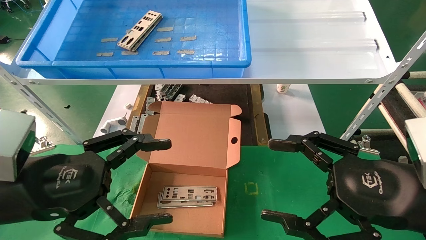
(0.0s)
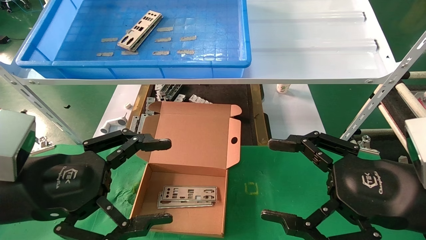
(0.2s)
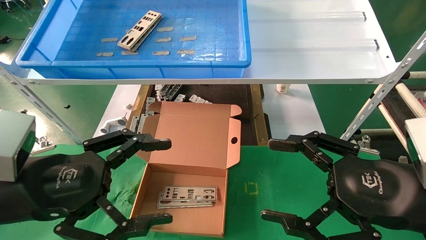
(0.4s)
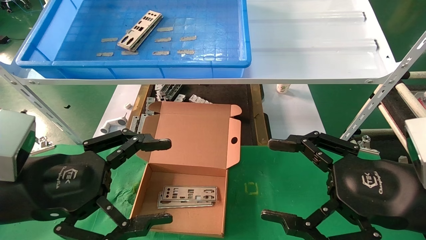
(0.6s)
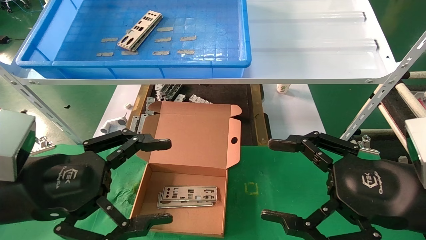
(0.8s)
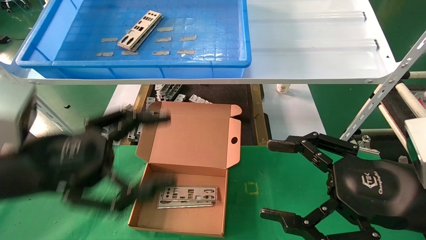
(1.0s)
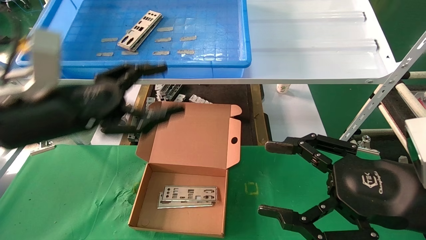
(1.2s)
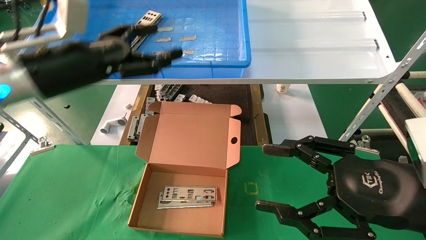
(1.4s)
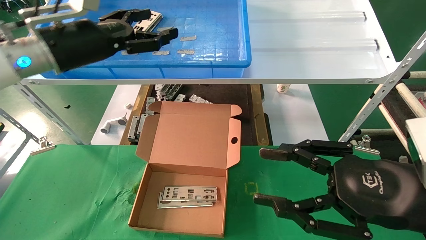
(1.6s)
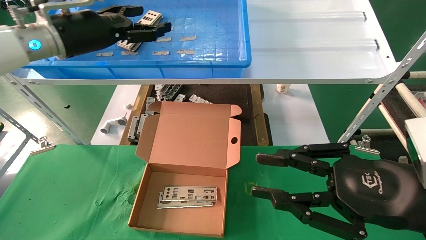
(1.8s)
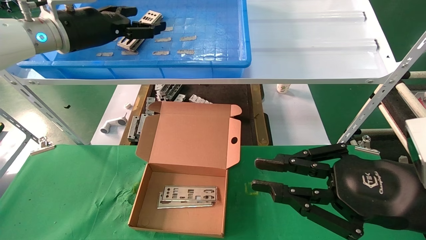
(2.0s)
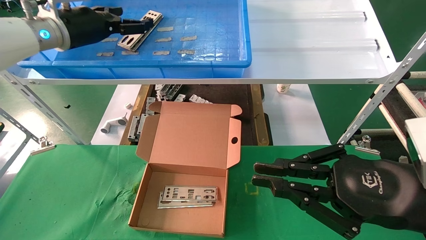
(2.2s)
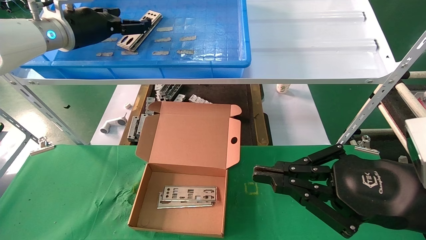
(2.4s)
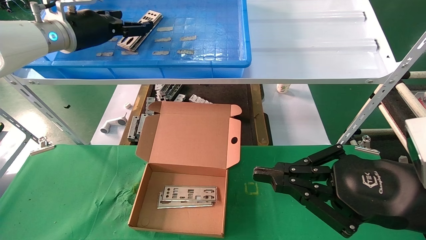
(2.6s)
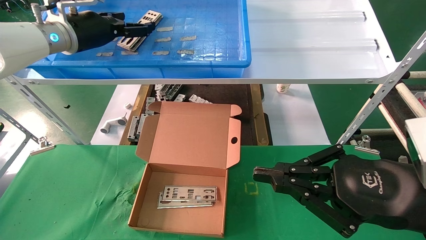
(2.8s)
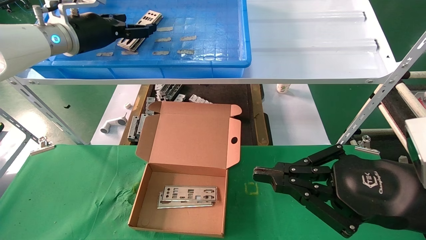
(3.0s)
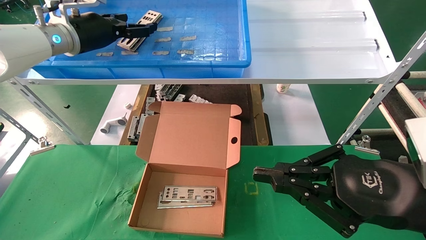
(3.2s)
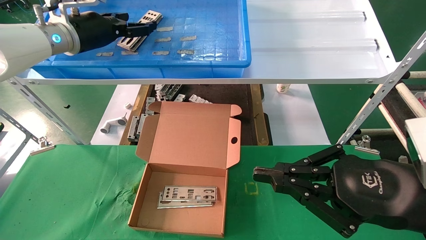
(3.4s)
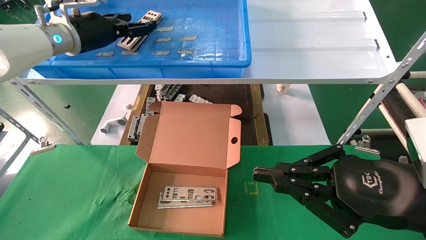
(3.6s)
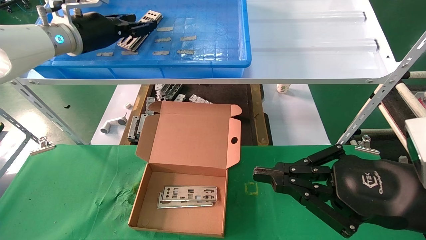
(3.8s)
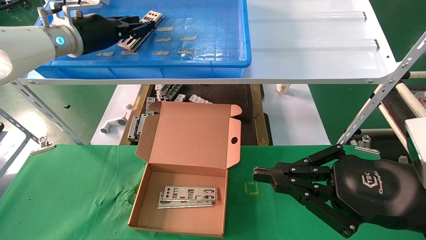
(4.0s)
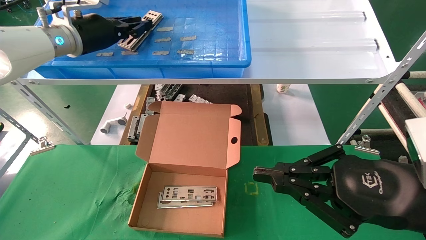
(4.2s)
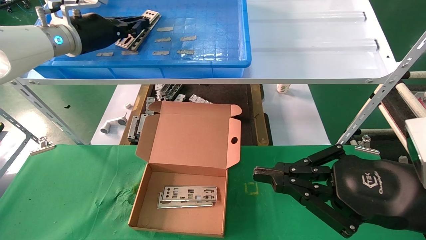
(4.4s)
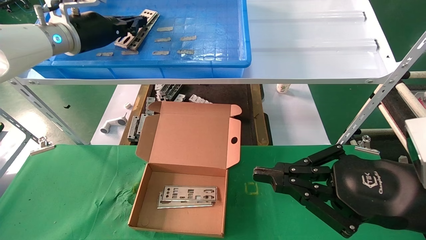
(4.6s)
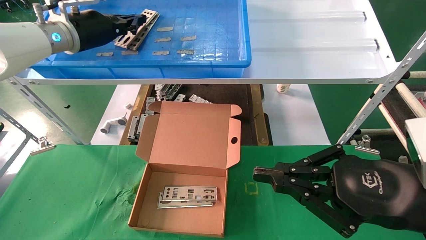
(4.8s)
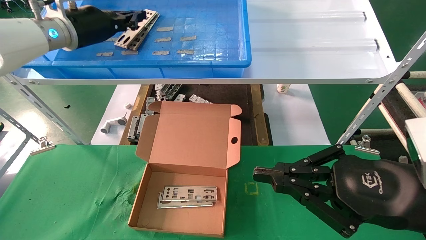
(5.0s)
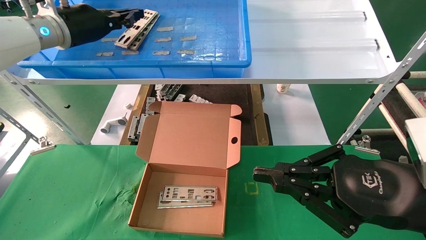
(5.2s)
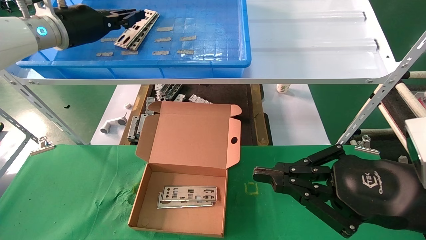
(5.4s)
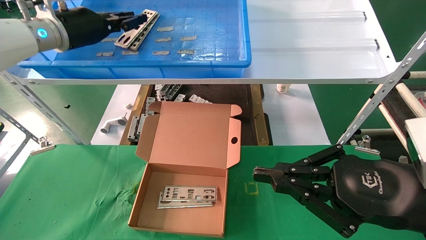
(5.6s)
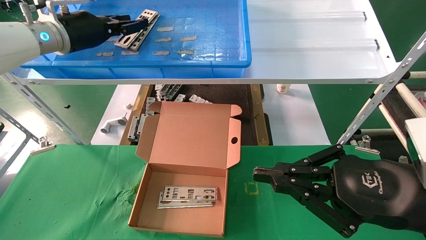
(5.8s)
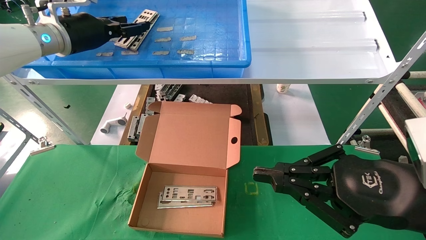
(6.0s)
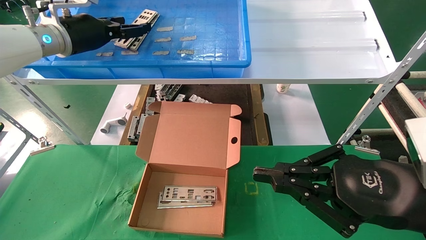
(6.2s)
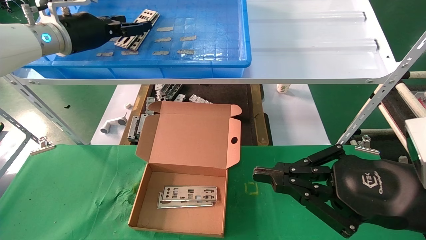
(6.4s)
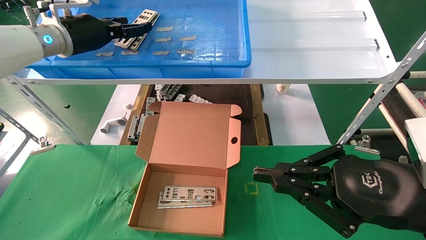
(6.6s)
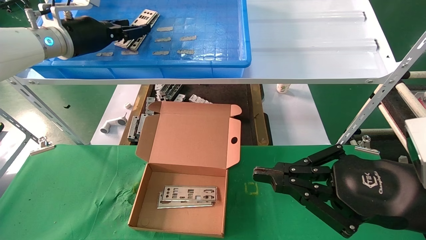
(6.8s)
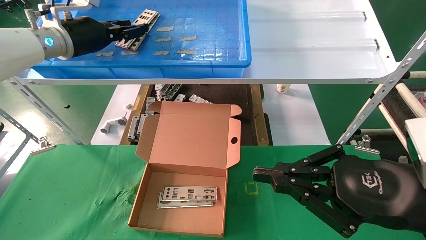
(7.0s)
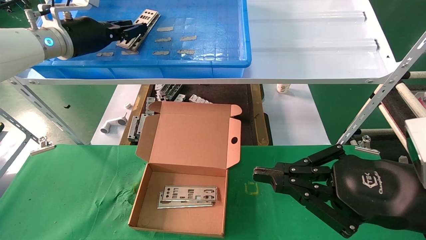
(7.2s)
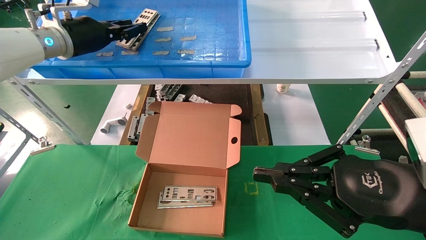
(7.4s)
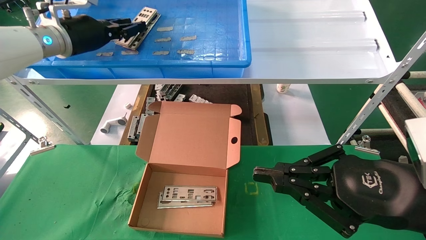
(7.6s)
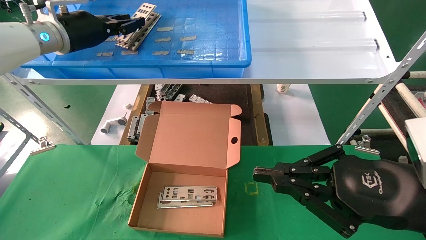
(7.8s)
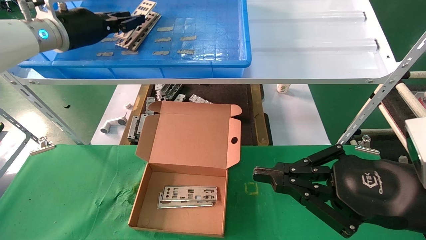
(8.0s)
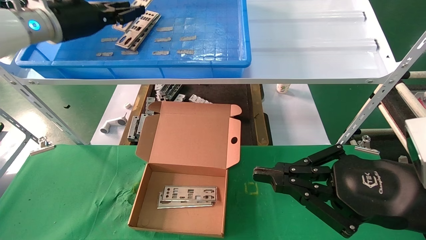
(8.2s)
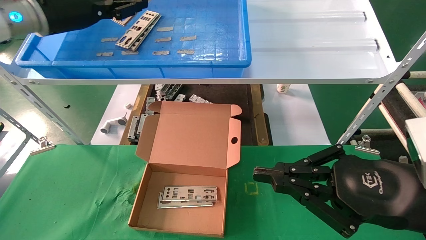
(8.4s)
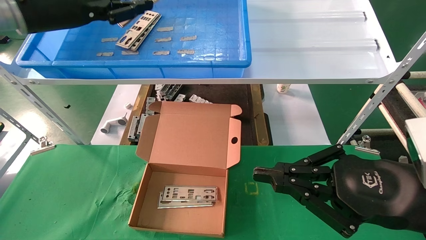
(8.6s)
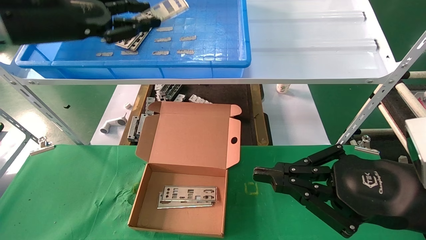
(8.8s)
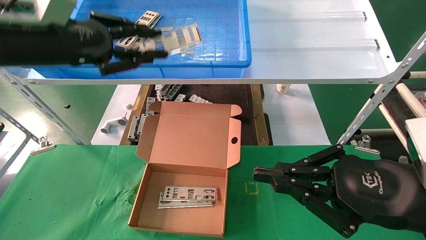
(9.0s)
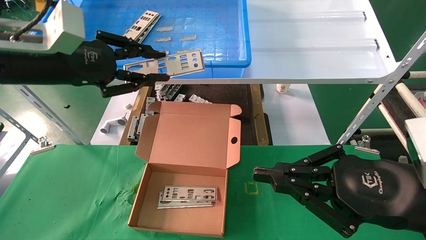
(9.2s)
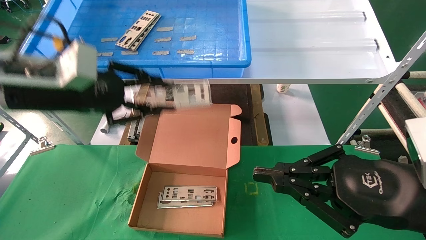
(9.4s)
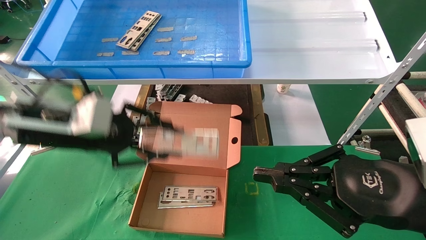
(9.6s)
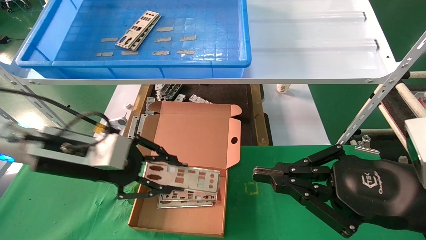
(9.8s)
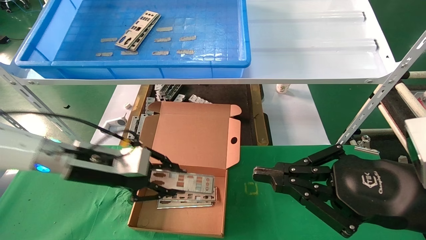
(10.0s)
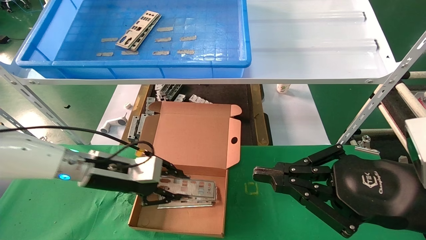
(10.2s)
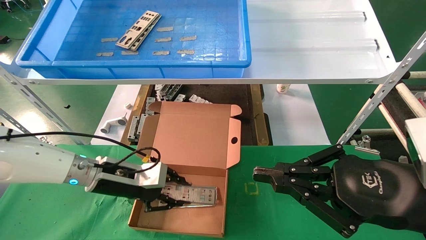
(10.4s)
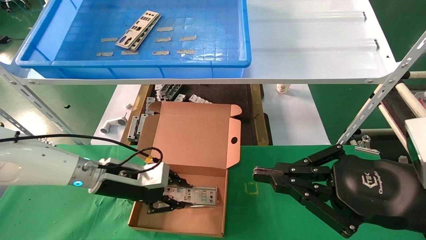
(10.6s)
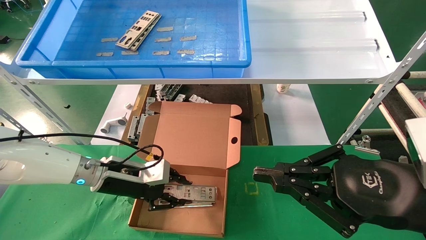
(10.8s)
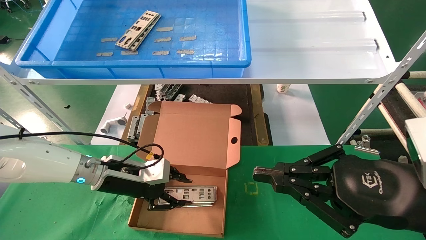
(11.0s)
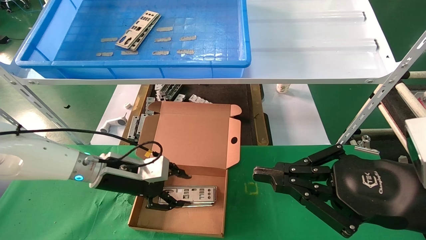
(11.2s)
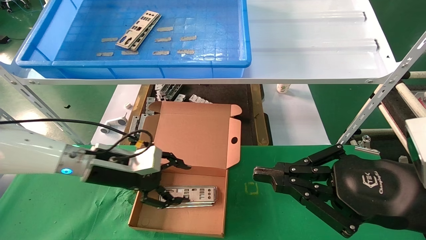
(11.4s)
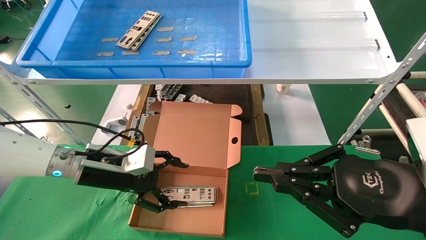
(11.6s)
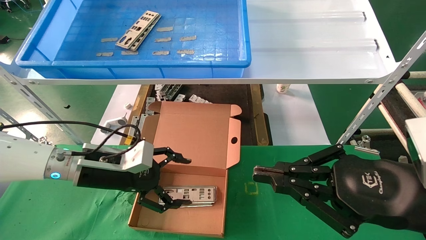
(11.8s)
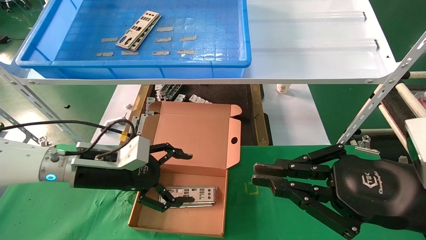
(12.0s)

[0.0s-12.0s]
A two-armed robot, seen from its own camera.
Task of the whole recording: pick up the parts on the tray and put them in the cardboard box.
Step, 1.2s to 7.6s: Pick up the IO bracket from the container box.
Step, 7.8s to 11.0s: Place the IO bracket into the ingredient slot.
0.0s to 1.6s: The left gripper is displaced forward and upward by about 25 cm; the right gripper closes.
1.6s to 3.0s: The left gripper goes some 5 cm forward, while the right gripper closes.
3.0s to 4.4s: The left gripper closes.
4.4s to 6.0s: The left gripper opens.
6.0s to 7.6s: Neither gripper changes place.
7.6s to 9.0s: The left gripper goes some 10 cm backward.
9.0s to 10.4s: The left gripper heads downward, covering some 25 cm.
10.4s to 12.0s: The left gripper opens up.

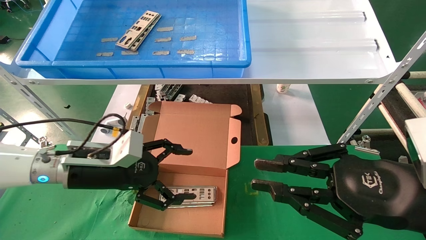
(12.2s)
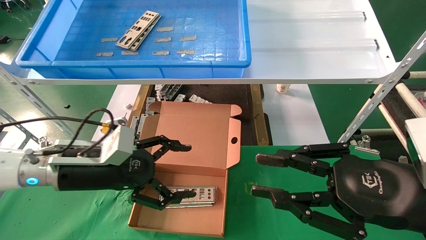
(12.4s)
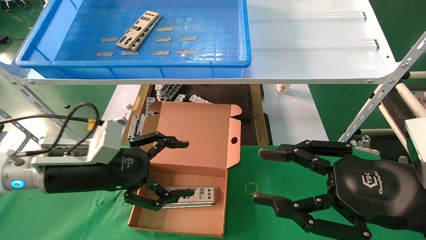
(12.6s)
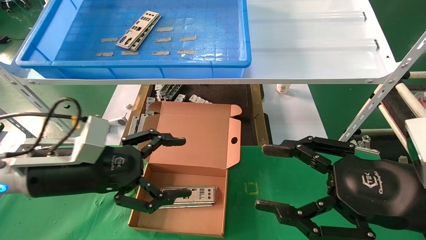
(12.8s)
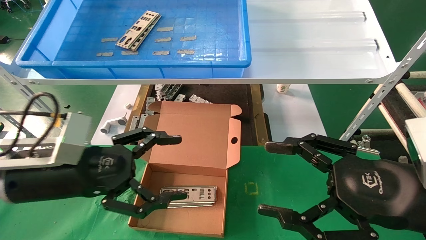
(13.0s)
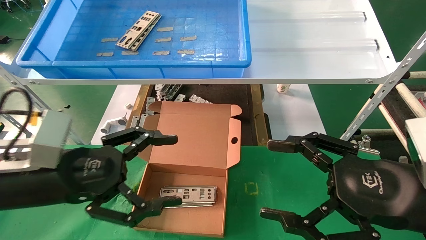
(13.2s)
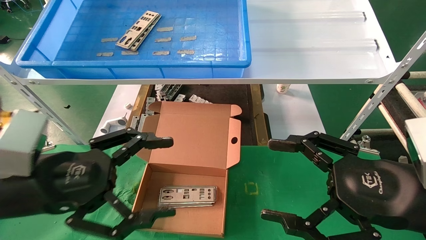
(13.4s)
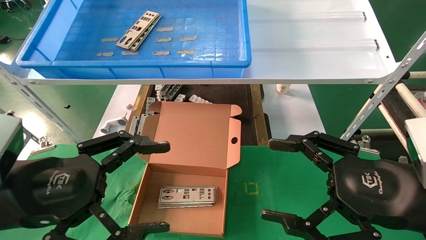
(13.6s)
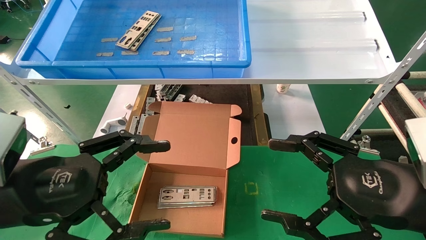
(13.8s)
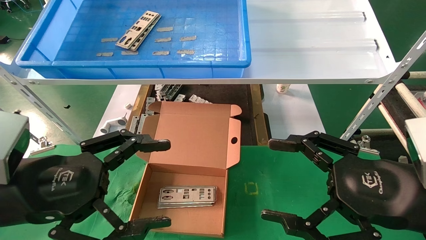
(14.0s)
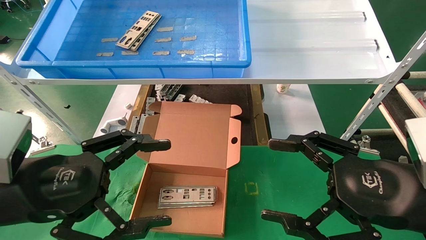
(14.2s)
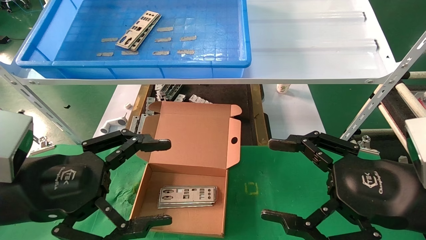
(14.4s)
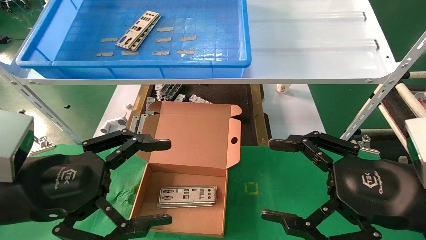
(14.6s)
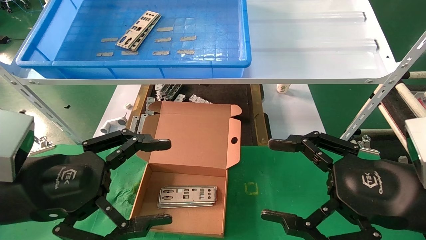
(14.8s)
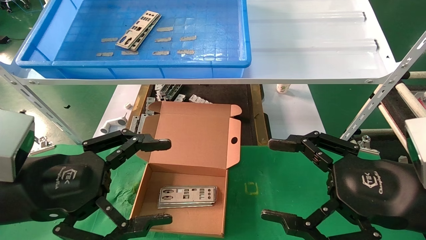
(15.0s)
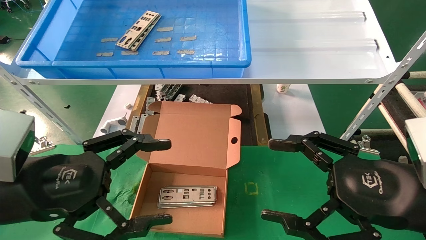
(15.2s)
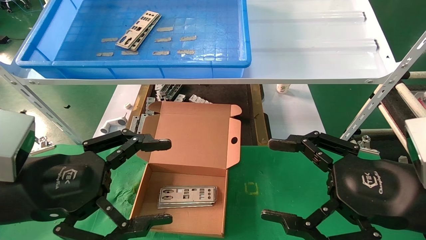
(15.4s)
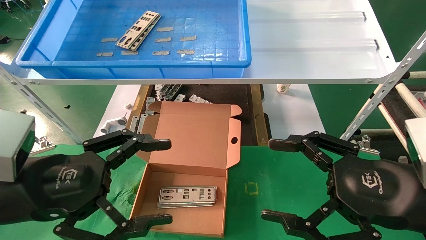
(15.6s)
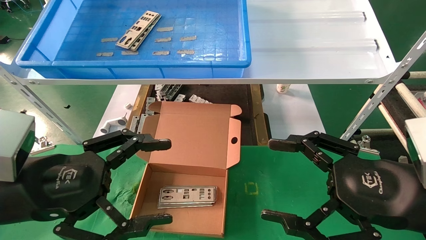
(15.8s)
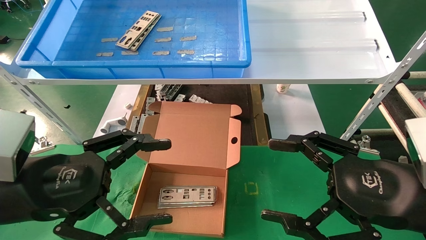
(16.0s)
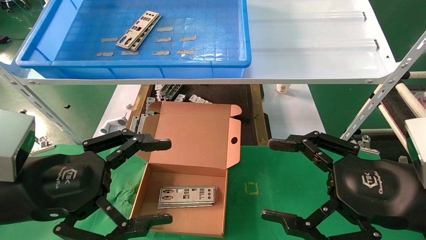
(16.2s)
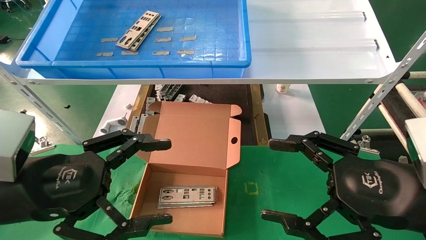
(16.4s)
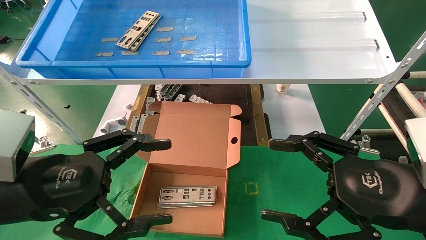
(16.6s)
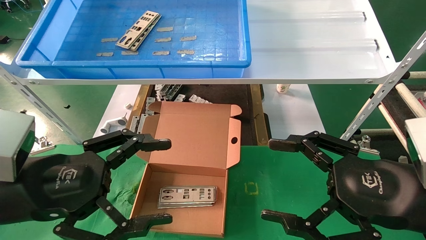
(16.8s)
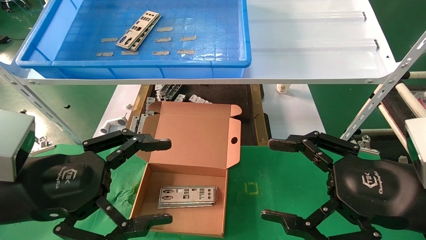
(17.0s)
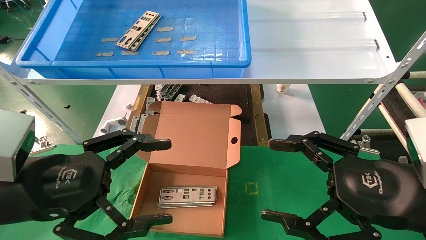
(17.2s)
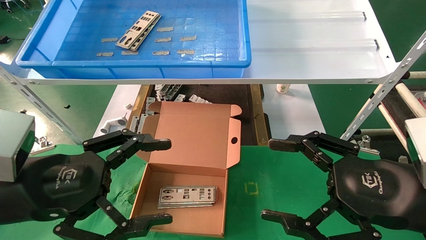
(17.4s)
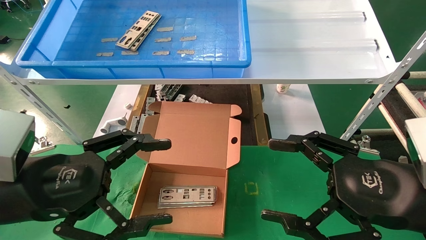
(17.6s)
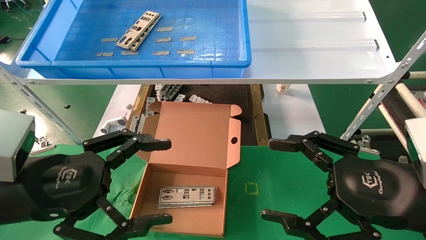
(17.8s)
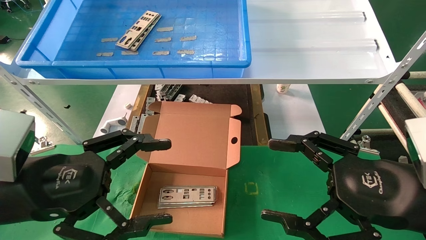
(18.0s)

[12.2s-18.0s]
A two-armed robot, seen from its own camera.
Task of the whole recording: pick up the parts on the tray and put them in the cardboard box.
12.2s to 13.6s: The right gripper opens up. The left gripper travels backward by some 15 cm.
13.6s to 18.0s: Neither gripper changes place.
